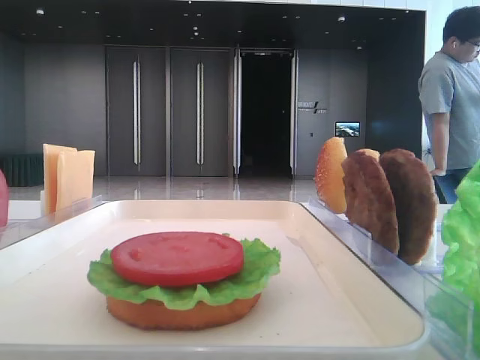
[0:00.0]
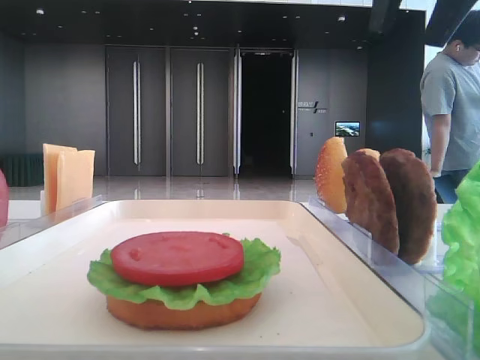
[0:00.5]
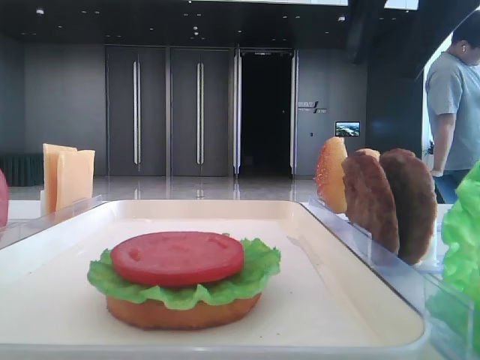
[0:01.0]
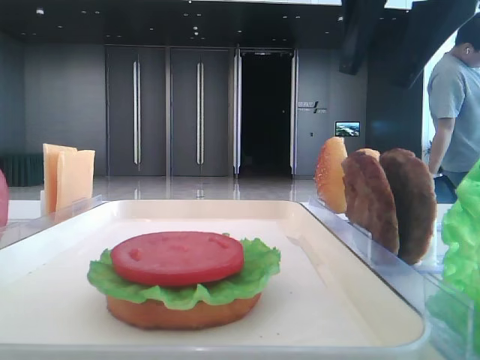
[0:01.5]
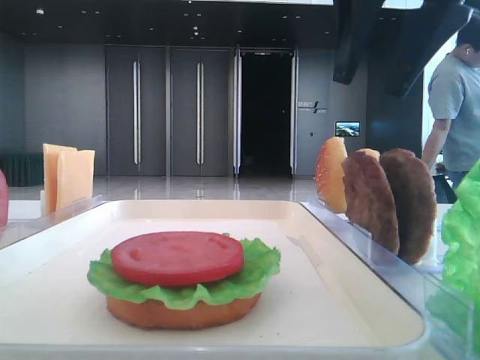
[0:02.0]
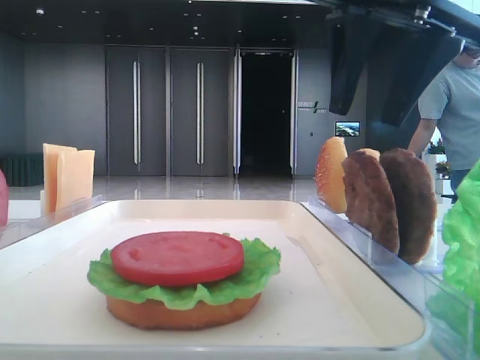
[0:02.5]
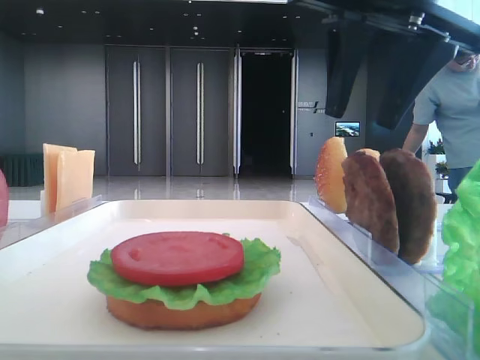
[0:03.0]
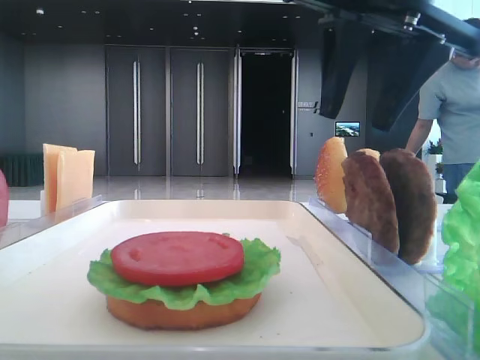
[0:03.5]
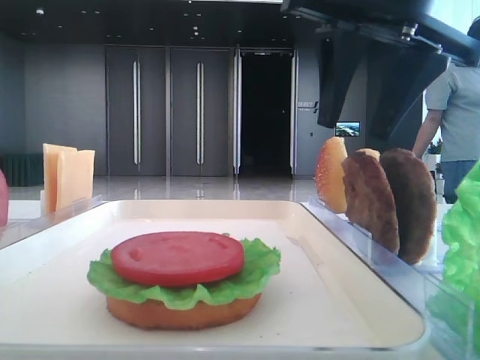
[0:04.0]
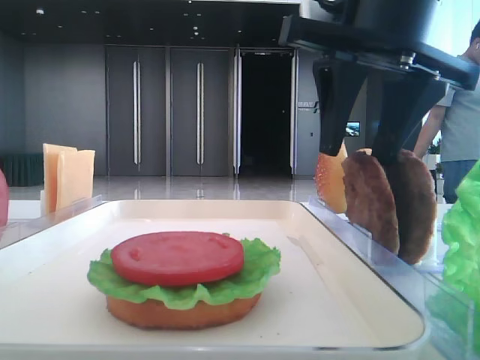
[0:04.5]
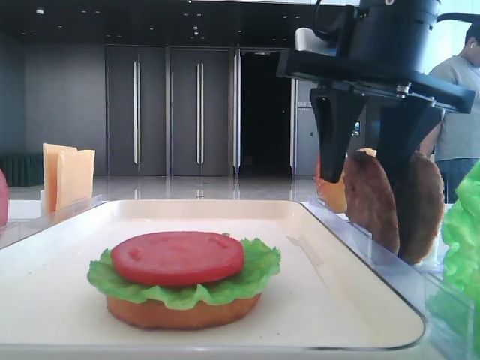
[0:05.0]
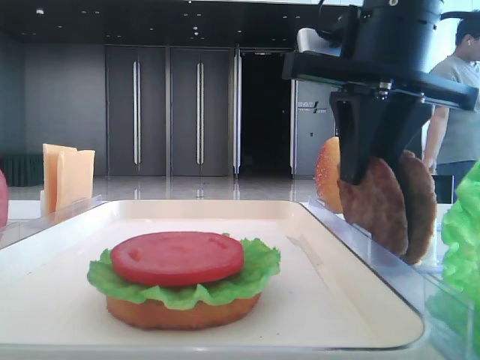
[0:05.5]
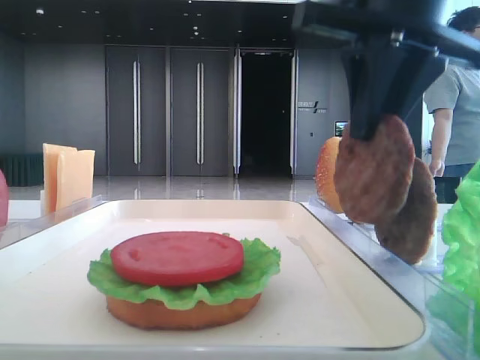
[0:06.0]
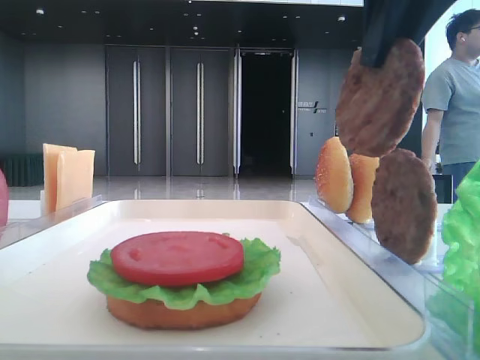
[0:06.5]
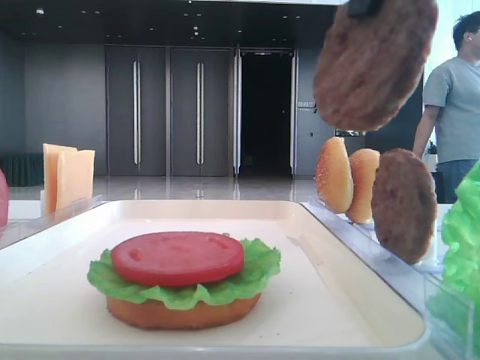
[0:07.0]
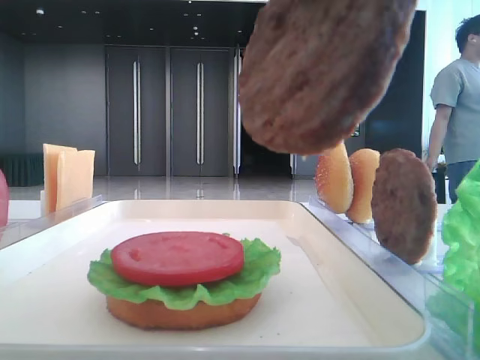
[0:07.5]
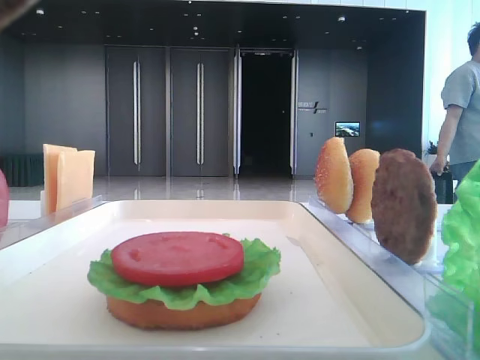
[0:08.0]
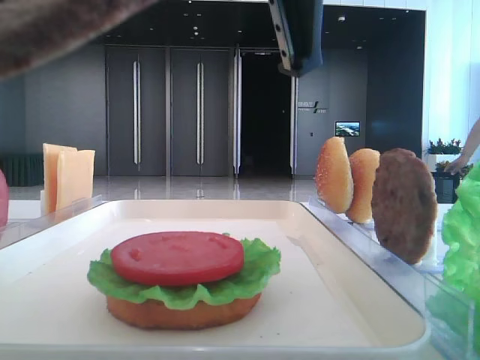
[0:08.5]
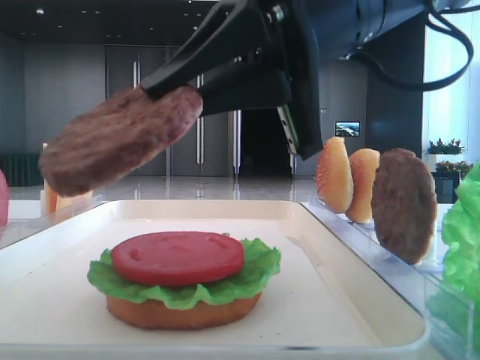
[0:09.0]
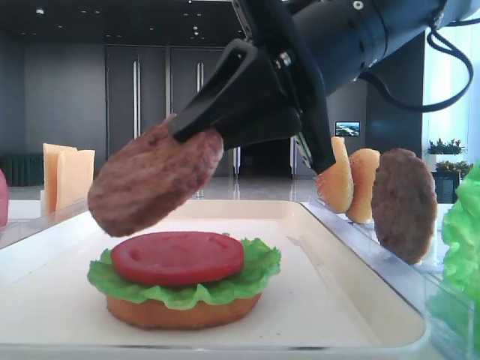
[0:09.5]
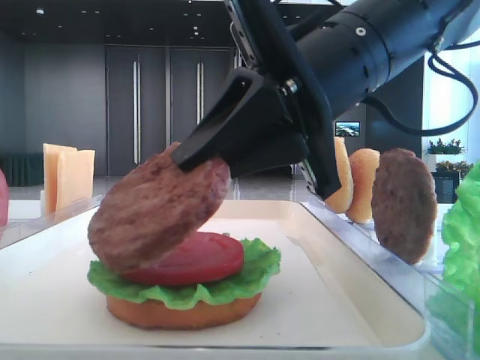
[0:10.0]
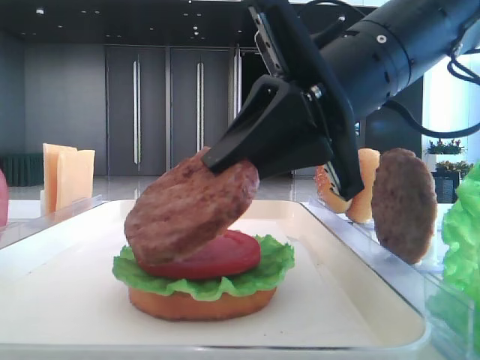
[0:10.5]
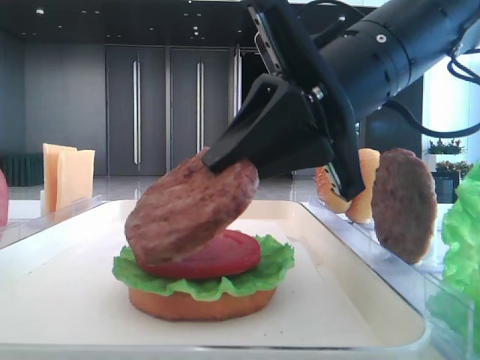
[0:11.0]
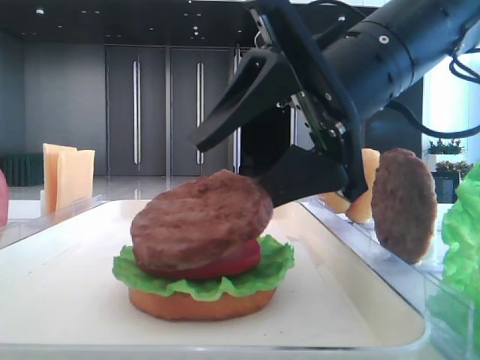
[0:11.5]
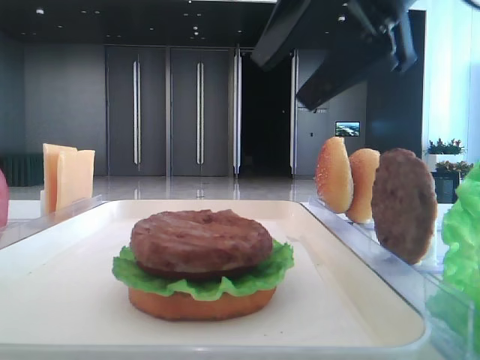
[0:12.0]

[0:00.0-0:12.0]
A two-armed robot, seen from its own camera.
Step, 0:00.0 to 0:05.5: Grab the patty with the right hand.
Step, 0:06.0 to 0:11.5: Place the patty on the tomato slice with the right hand.
0:00.0 to 0:02.0: The right gripper heads downward and forward, covering some 10 cm.
0:02.0 to 0:04.0: The grippers stay close to where they were, moving slightly.
0:04.0 to 0:06.0: The right gripper closes.
0:06.0 to 0:08.0: The right gripper shifts about 15 cm backward and to the left.
0:08.0 to 0:10.0: The right gripper travels downward and forward by roughly 15 cm.
0:10.0 to 0:12.0: The right gripper is displaced upward by roughly 10 cm, and opens its fingers.

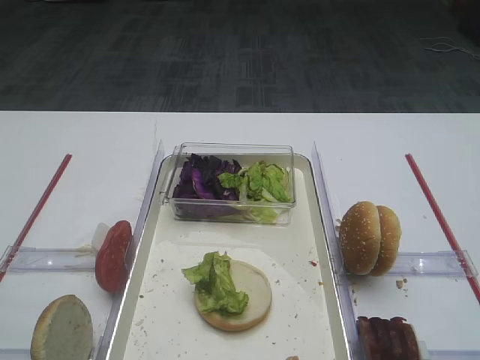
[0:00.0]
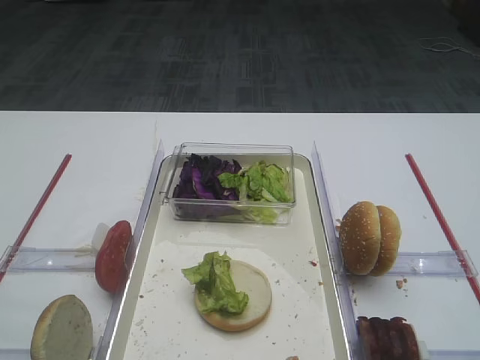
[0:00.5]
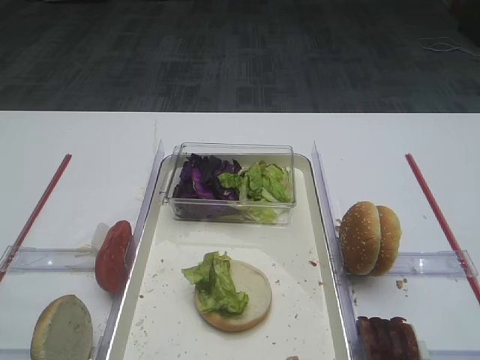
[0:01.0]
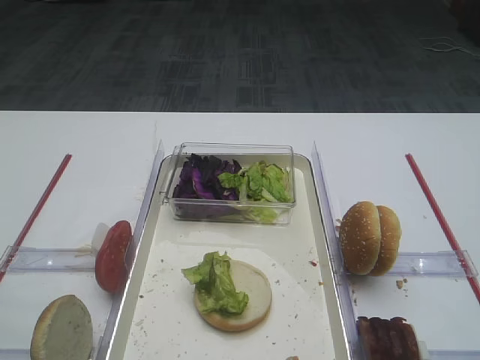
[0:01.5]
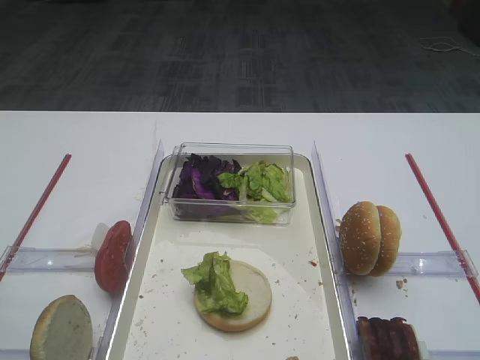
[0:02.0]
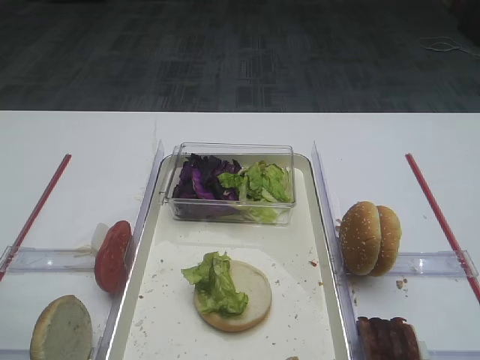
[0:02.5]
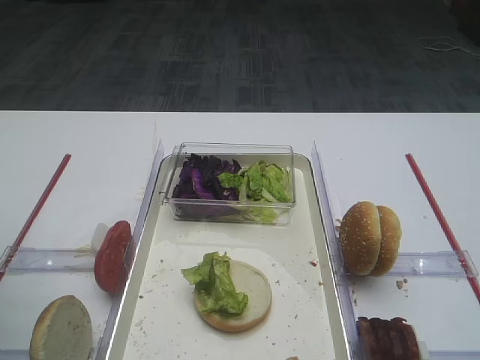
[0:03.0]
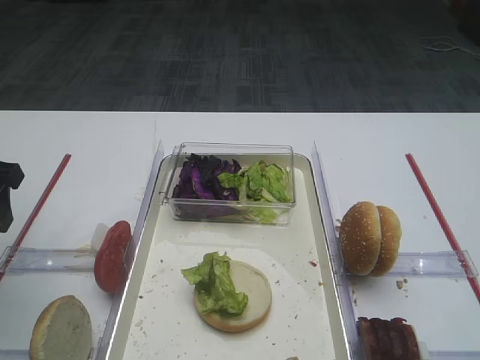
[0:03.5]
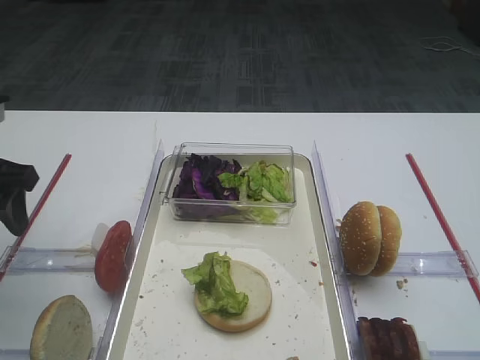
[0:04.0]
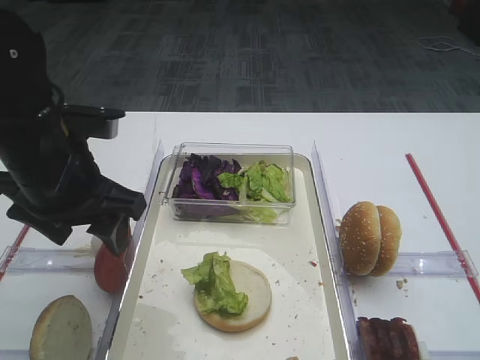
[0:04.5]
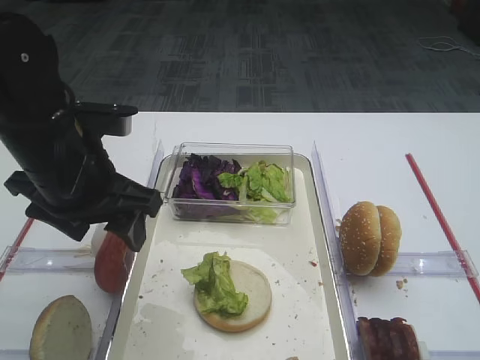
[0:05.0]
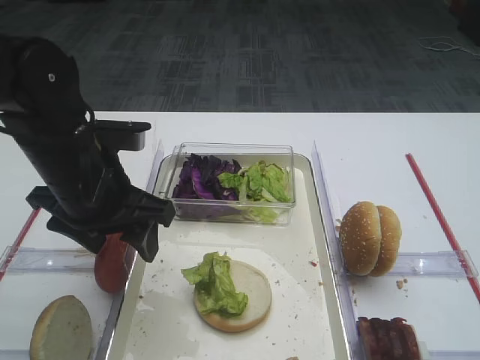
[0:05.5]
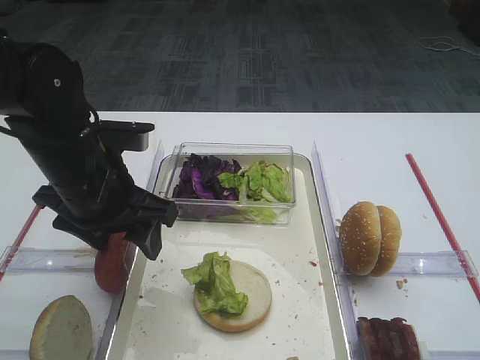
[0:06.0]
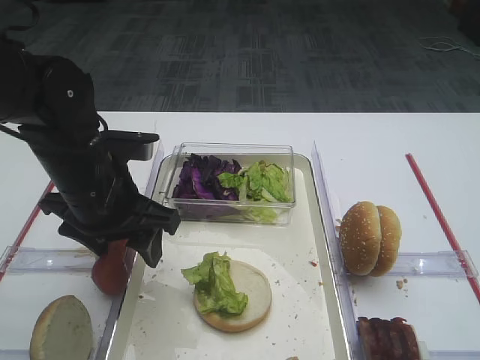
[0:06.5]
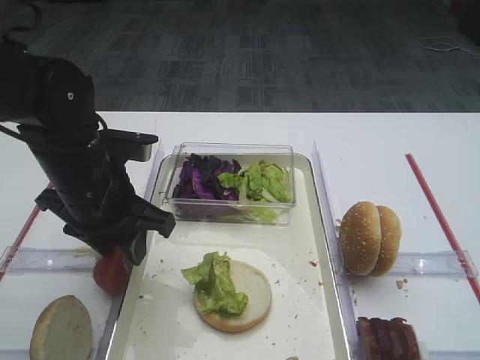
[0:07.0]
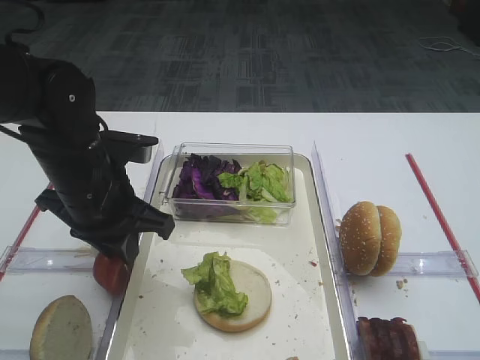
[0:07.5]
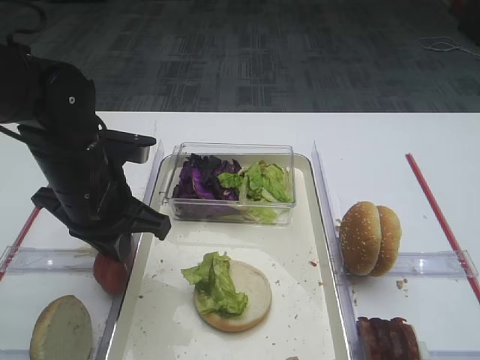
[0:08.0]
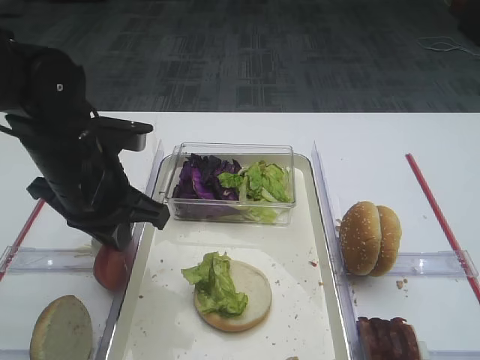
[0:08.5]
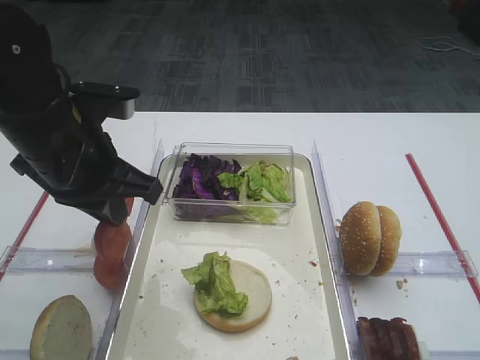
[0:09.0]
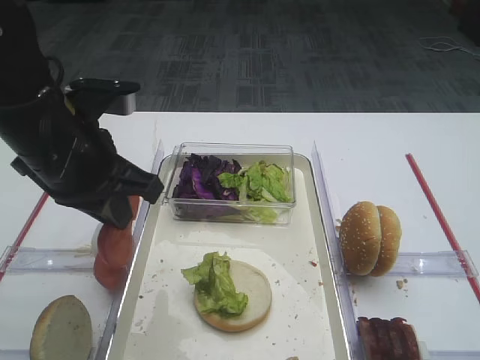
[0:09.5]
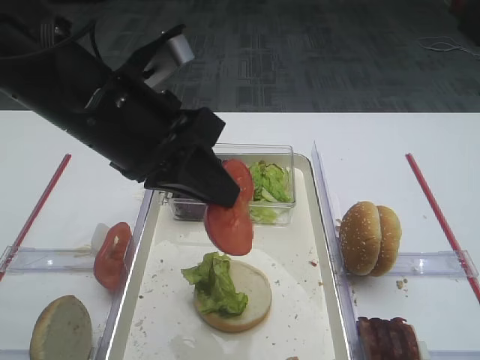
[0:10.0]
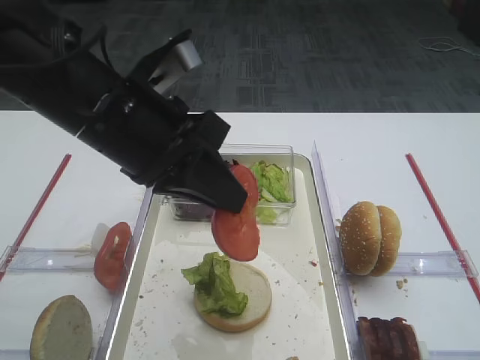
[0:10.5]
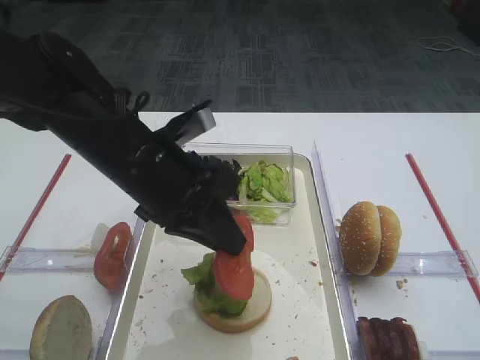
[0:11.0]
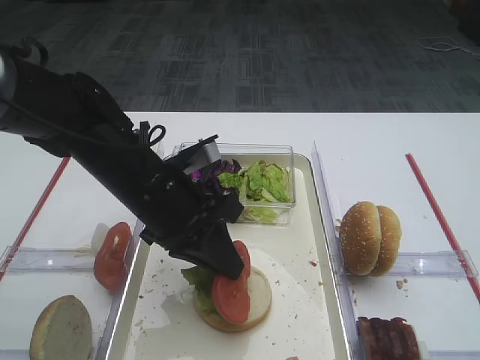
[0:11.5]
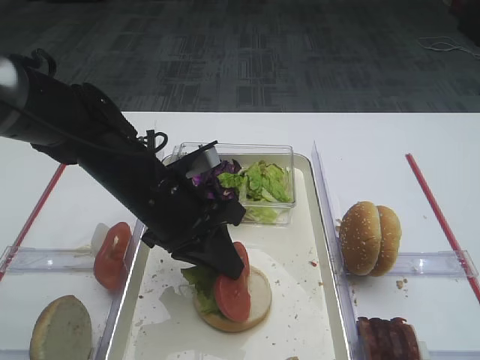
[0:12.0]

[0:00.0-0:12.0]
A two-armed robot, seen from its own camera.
Step, 0:00.0 to 0:09.0: Pick up the tomato slice with the left gripper.
0:02.0 to 0:04.0: The left gripper heads forward, covering roughly 20 cm.
0:04.0 to 0:06.0: The left gripper heads to the right, covering some 15 cm.
0:06.0 to 0:08.0: The left gripper closes its fingers.
0:08.0 to 0:10.0: The left gripper shifts some 10 cm upward.
0:10.0 to 0:12.0: The left gripper is displaced downward by some 10 cm.

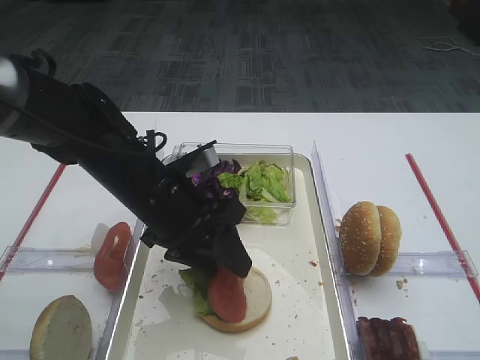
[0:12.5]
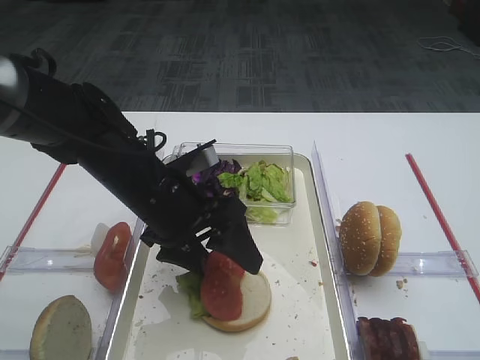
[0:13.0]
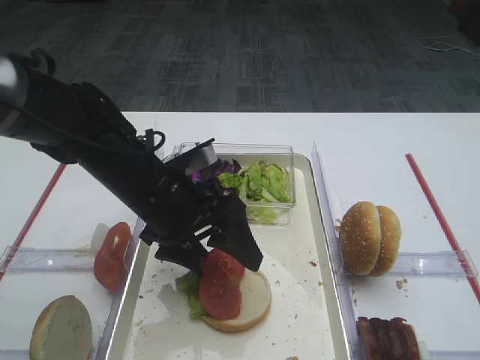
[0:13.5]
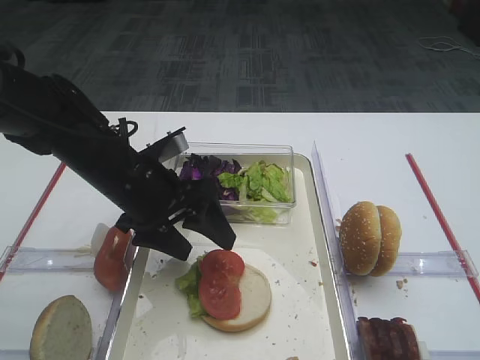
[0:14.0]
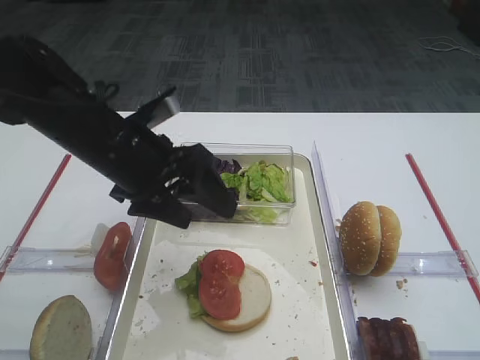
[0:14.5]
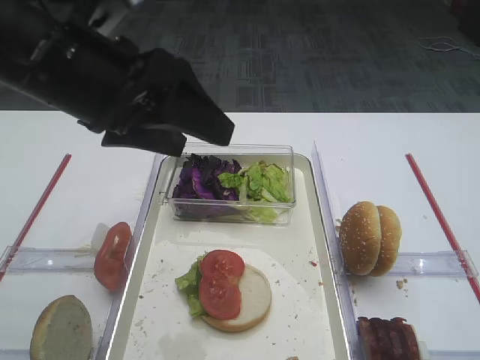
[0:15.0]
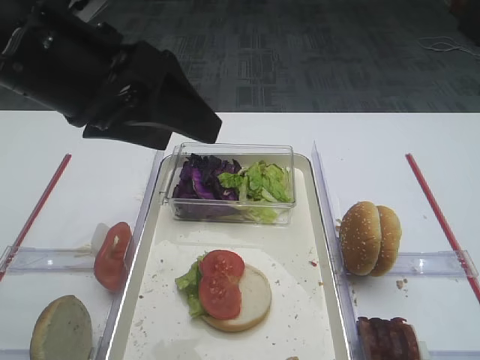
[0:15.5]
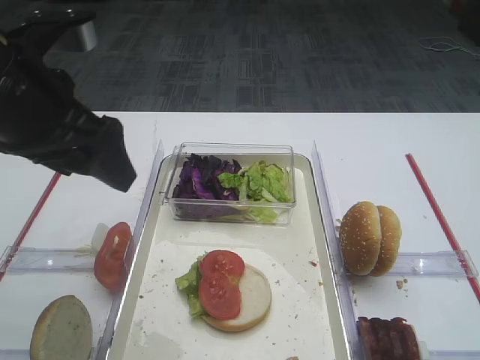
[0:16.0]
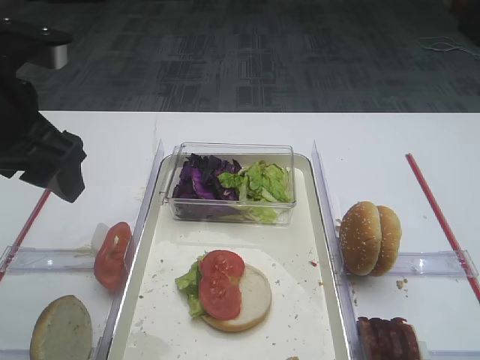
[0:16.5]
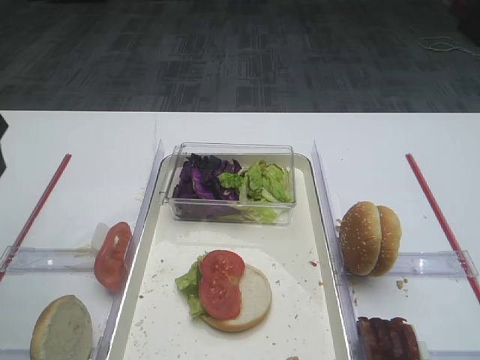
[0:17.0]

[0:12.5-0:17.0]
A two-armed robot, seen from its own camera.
0:12.5 to 0:14.5: The left gripper heads upward, covering some 5 cm, and opens.
0:14.5 to 0:17.0: The left gripper heads to the left and upward, covering about 20 cm.
